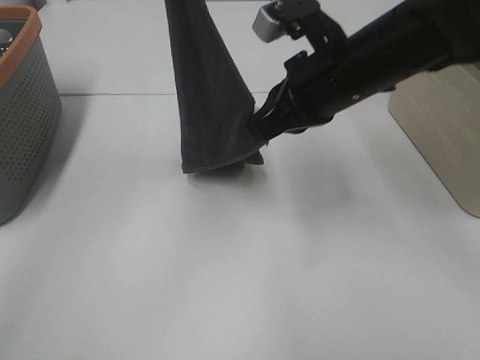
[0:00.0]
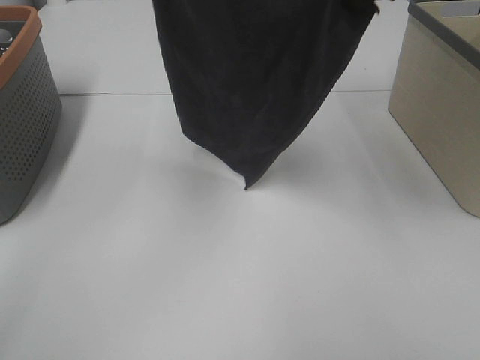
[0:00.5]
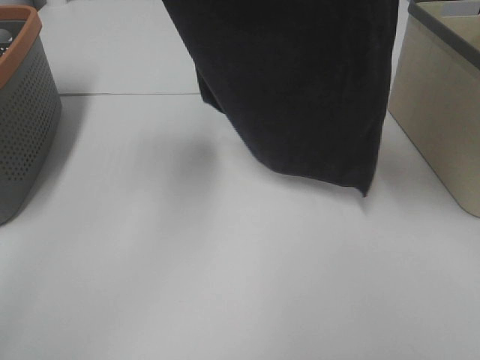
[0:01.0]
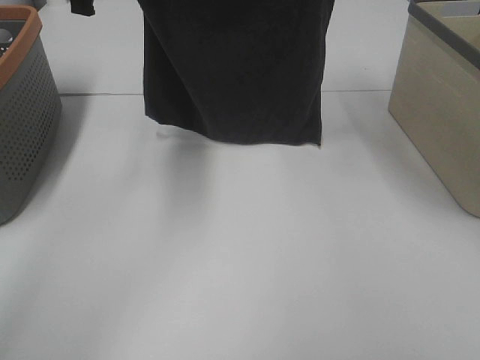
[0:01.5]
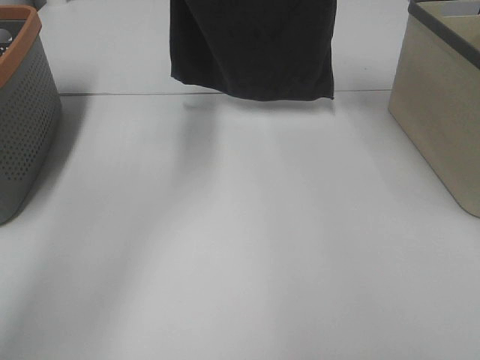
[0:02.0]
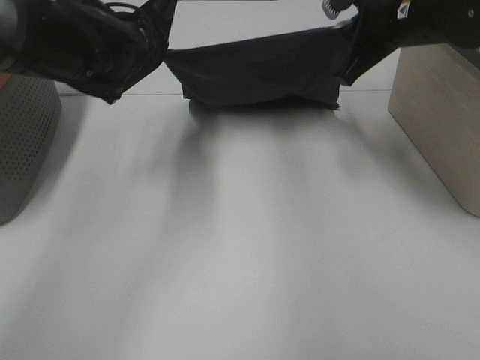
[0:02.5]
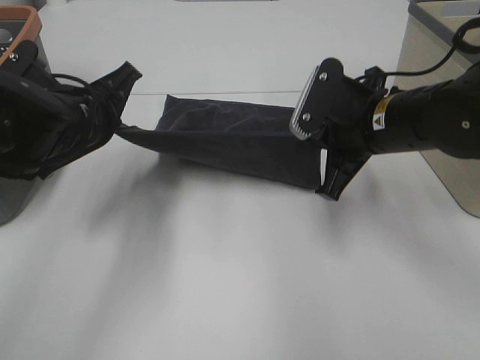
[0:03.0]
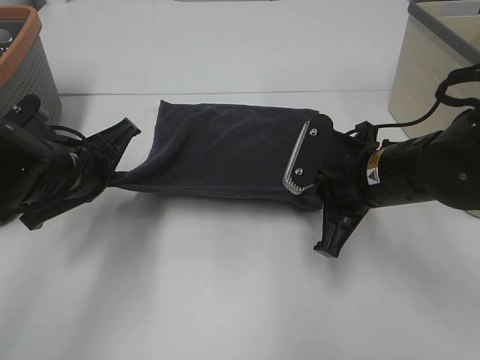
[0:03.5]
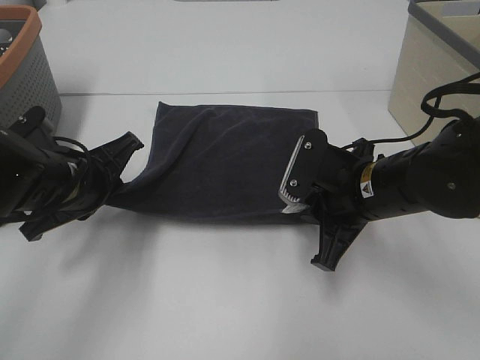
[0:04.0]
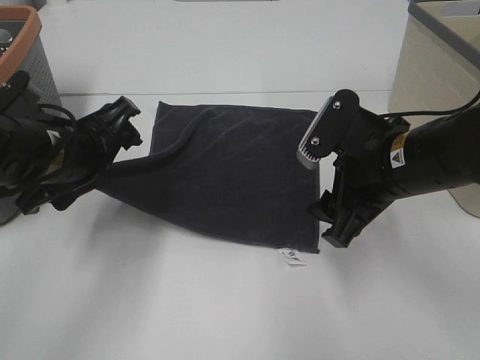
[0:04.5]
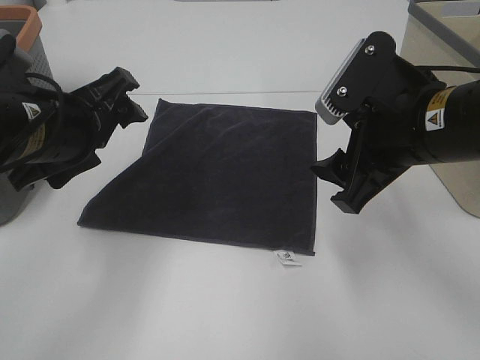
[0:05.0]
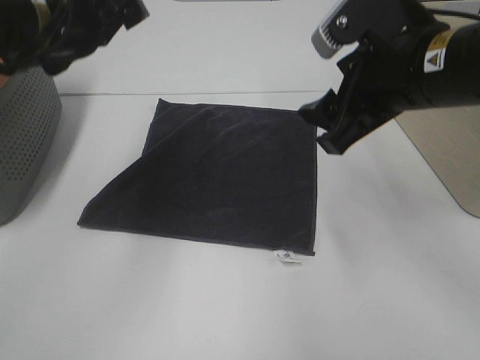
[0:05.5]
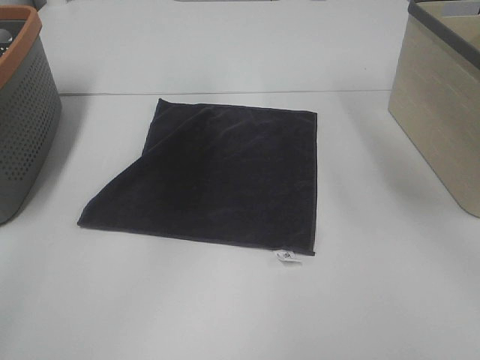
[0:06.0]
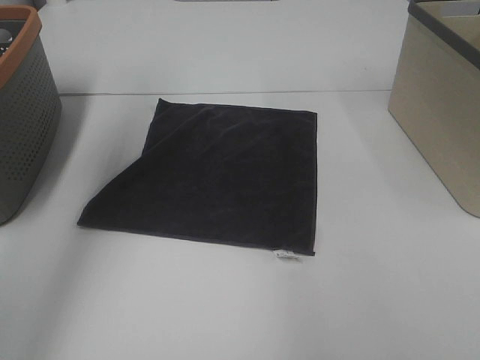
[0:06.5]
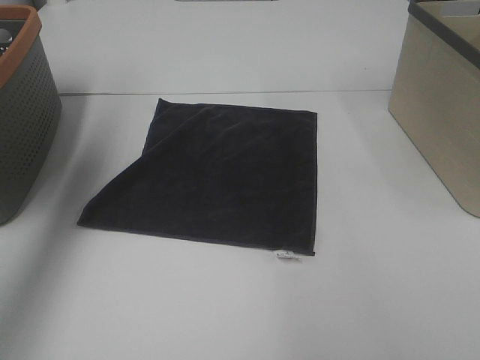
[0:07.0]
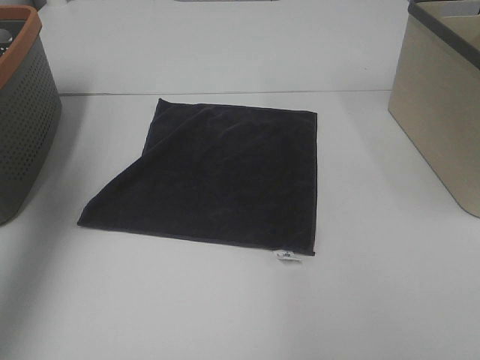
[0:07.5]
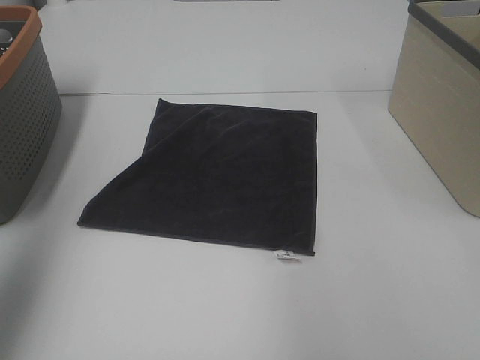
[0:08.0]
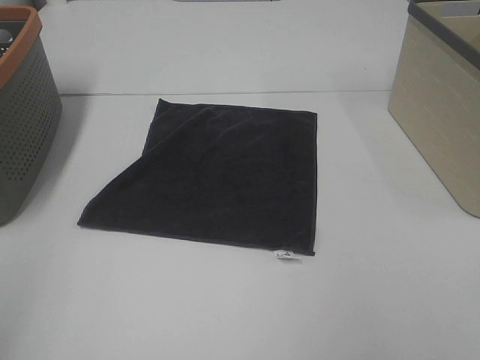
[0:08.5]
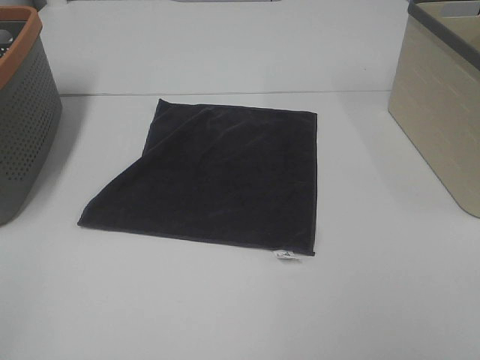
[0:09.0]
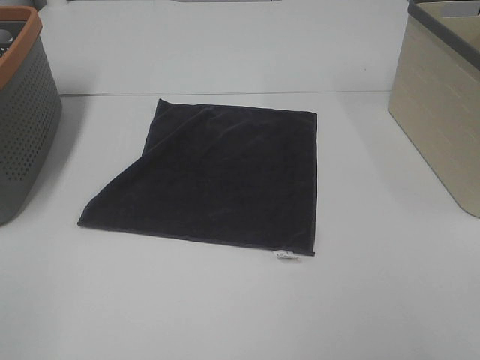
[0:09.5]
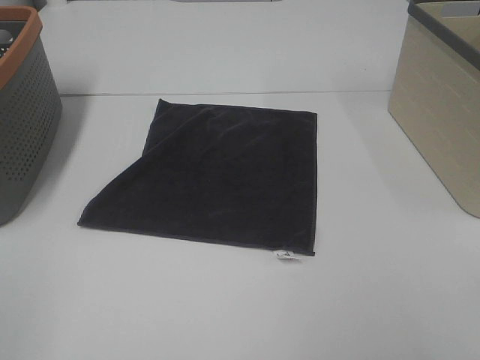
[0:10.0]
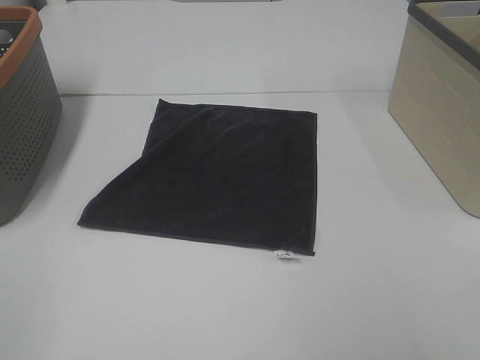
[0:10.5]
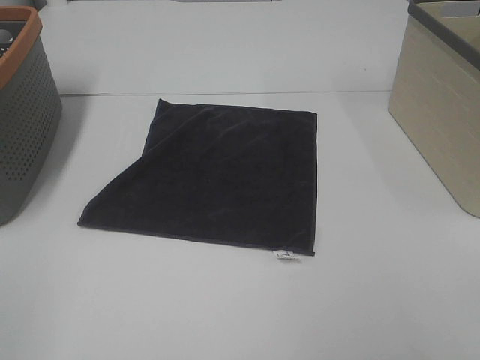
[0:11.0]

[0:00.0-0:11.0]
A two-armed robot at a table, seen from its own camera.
Task of the whole recording: Remove the towel and place it.
0:00.0 to 0:02.0: The right gripper travels forward, upward and to the right by roughly 20 cm, while the left gripper shifts approximately 15 cm forward and downward.
0:02.0 to 0:03.5: The left gripper goes approximately 30 cm backward and downward. Meanwhile the right gripper heads downward and backward, covering some 30 cm.
0:03.5 to 0:05.5: Both grippers move upward, some 15 cm. The left gripper opens up. Meanwhile the right gripper opens up.
0:05.5 to 0:07.5: The left gripper goes roughly 25 cm to the left and upward. The right gripper is displaced upward, to the right and forward by about 20 cm.
0:07.5 to 0:09.0: The left gripper shifts roughly 35 cm backward and downward.
